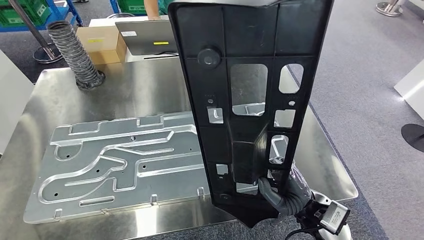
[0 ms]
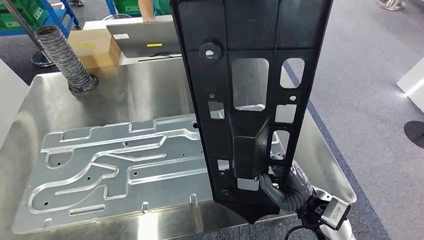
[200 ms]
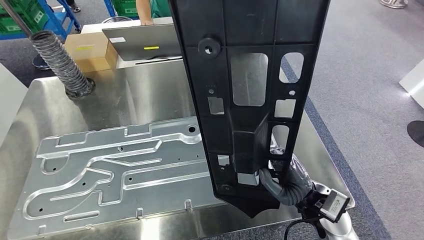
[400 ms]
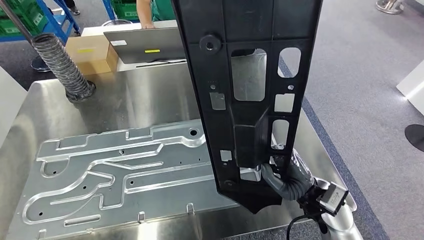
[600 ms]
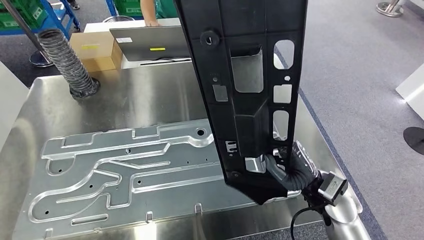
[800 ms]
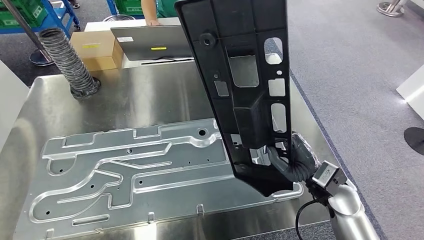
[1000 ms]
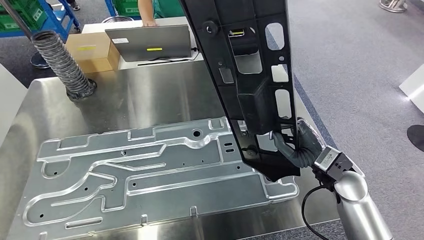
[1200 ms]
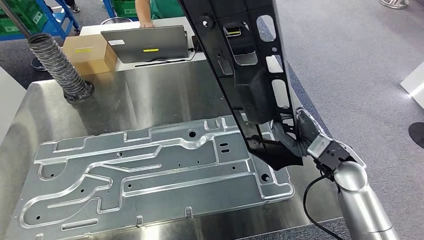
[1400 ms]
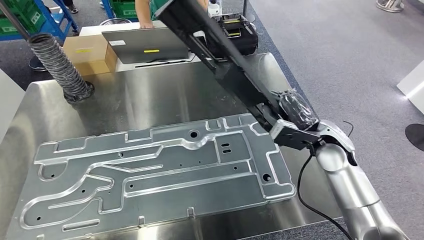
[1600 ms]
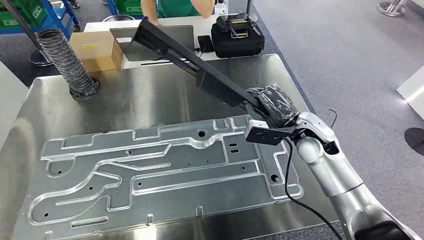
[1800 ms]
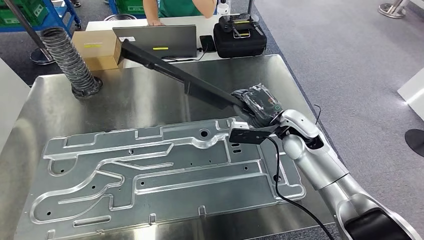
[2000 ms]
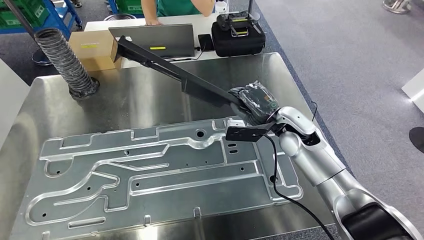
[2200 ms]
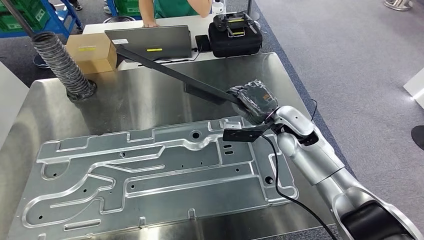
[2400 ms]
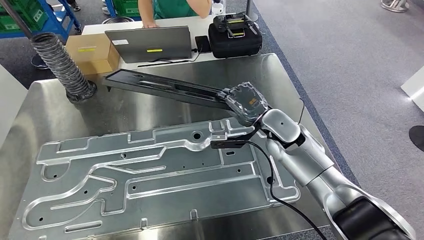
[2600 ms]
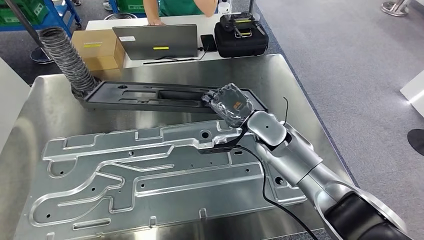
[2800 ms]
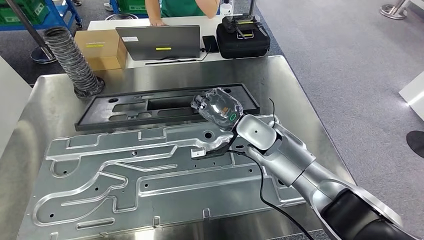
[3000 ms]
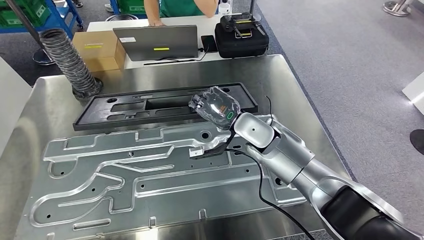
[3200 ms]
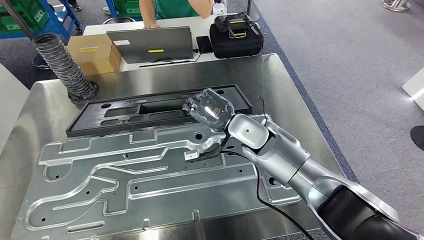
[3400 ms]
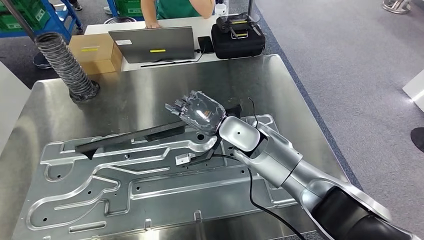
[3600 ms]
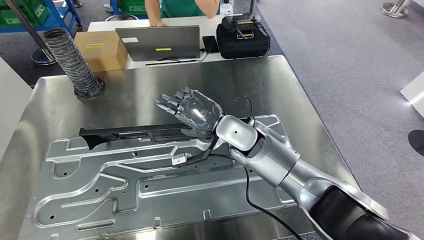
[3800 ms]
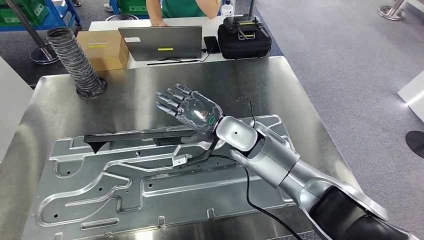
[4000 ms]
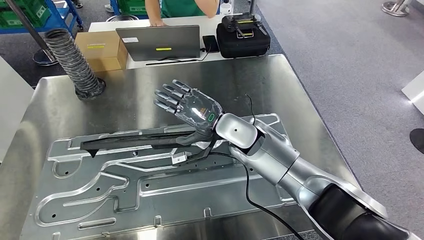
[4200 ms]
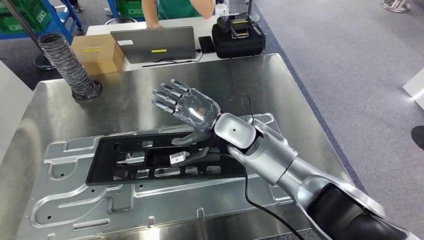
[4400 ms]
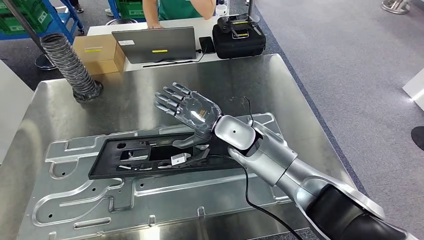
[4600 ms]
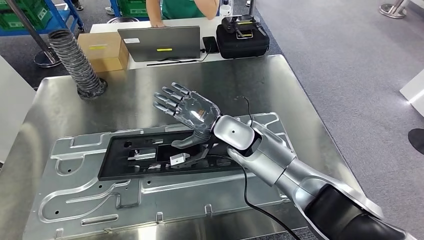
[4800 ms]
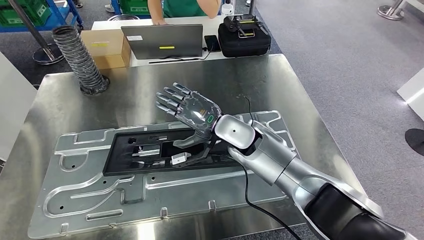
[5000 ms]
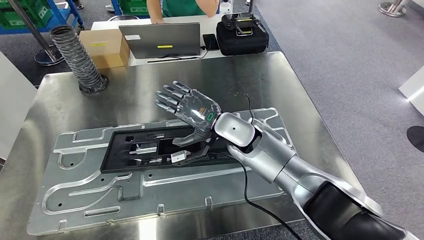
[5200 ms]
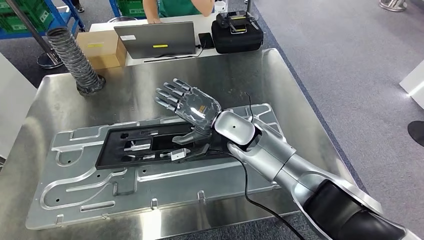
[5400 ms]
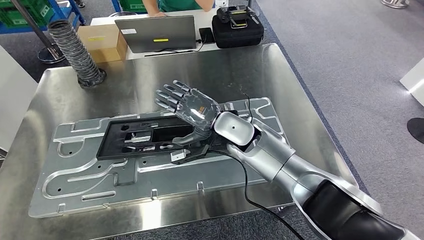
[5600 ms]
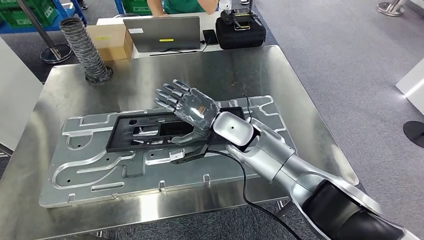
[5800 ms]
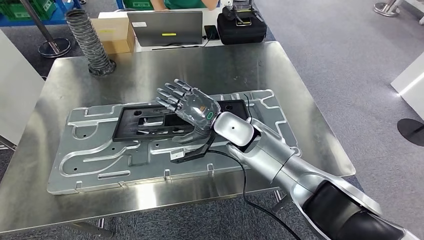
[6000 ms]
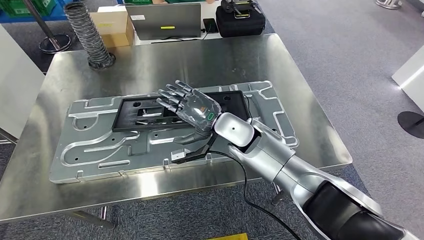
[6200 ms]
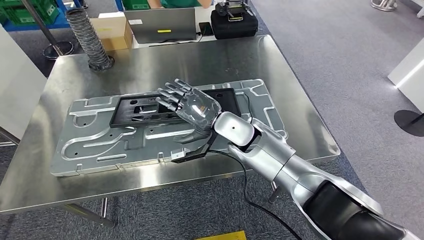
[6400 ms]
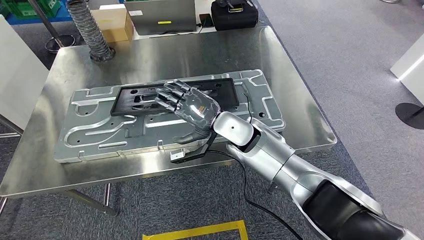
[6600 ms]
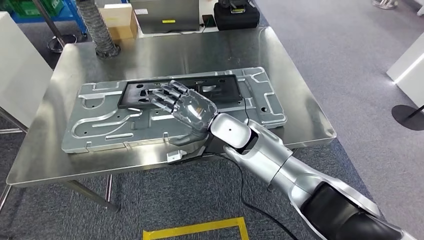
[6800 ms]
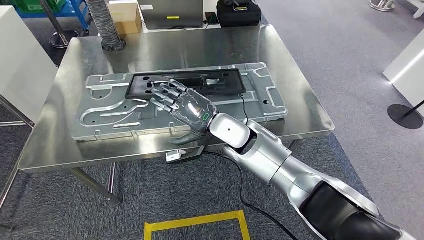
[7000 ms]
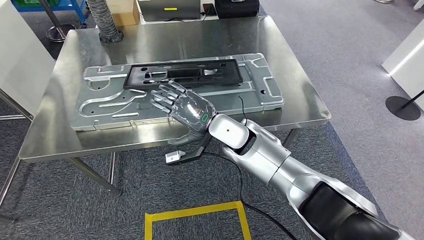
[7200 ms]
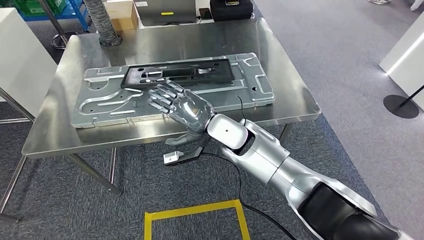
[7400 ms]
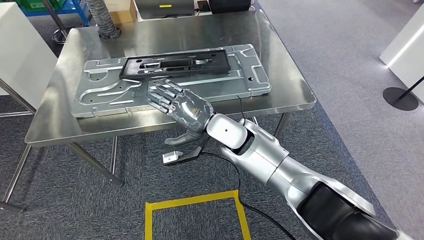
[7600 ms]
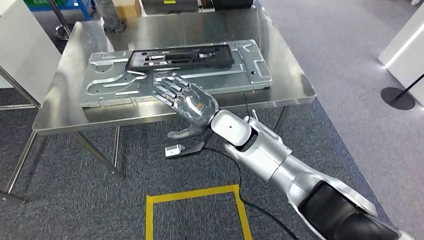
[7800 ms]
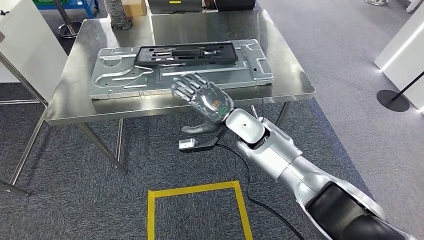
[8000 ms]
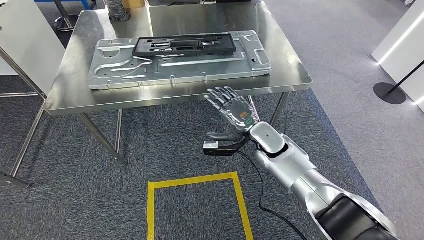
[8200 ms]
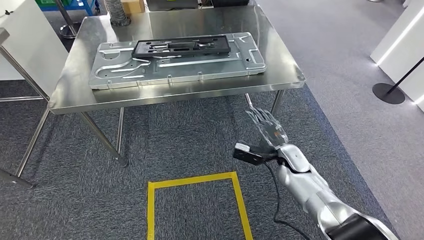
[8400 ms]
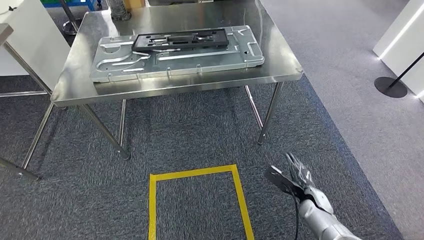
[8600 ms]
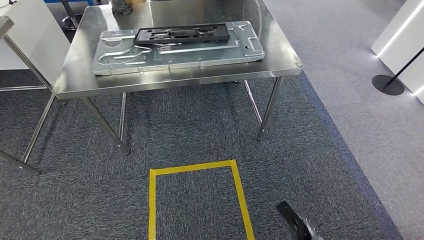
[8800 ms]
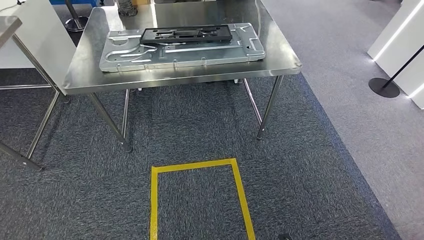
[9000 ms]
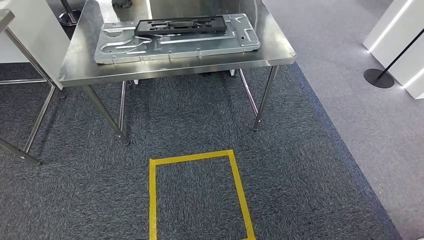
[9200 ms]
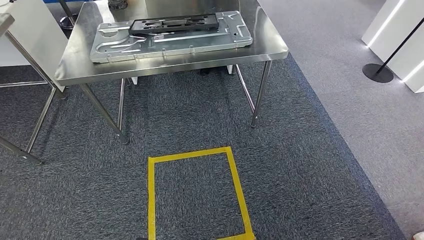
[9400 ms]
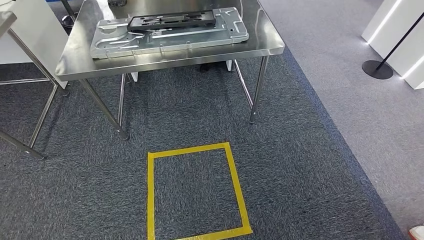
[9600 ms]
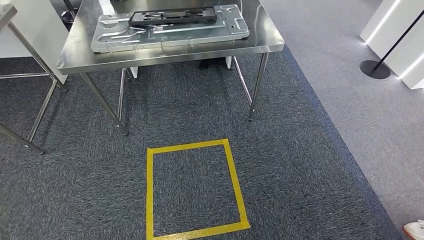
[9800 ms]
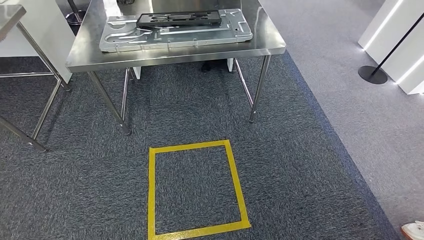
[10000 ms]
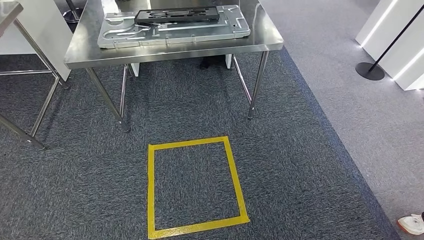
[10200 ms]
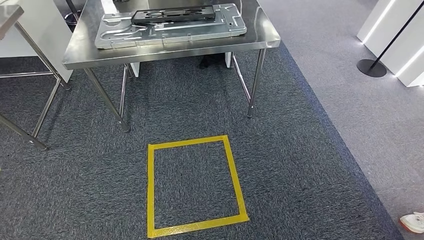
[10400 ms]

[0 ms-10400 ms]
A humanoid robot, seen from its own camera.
Step, 0 ms to 5200 ms: Insert the large material into the corresponding slot on the workbench.
Step, 7400 ms to 10400 ms: Return to the initial position at the shelf.
